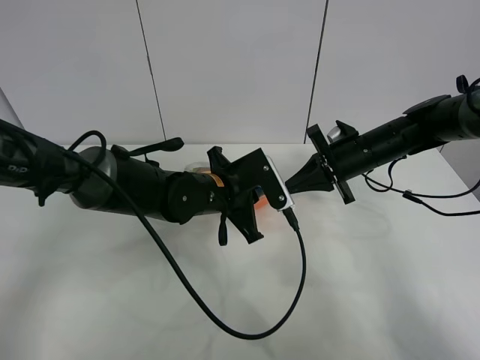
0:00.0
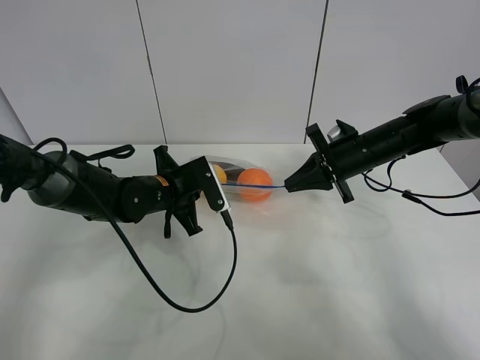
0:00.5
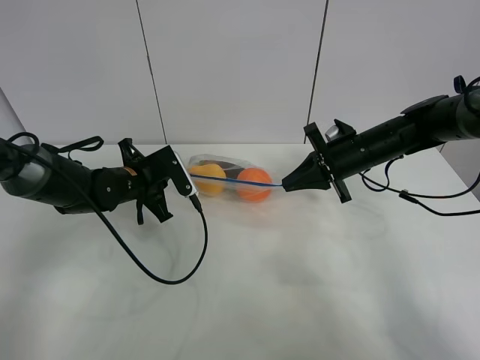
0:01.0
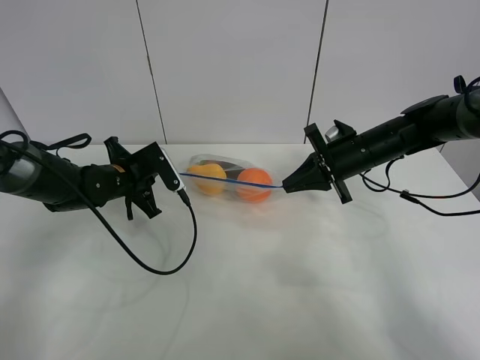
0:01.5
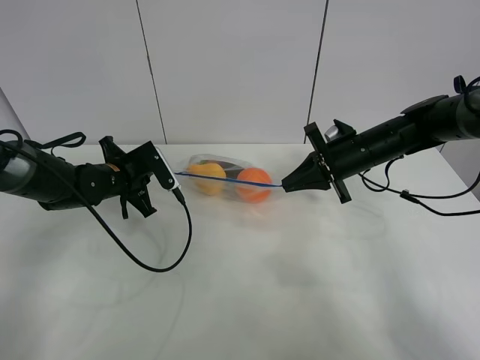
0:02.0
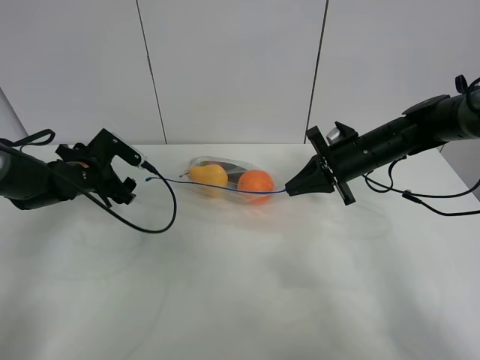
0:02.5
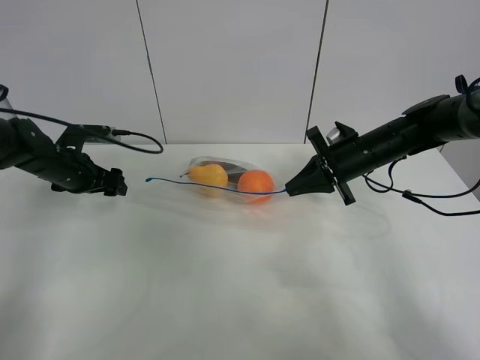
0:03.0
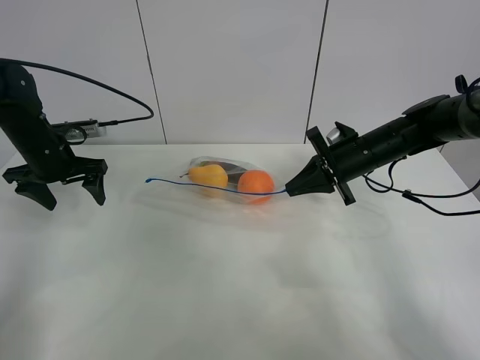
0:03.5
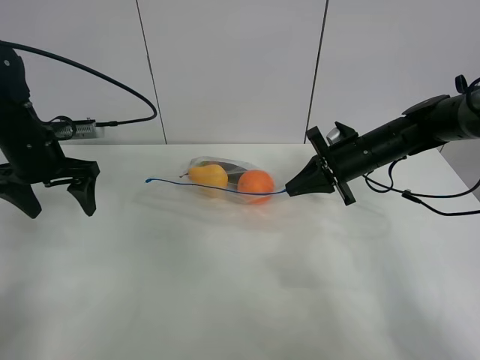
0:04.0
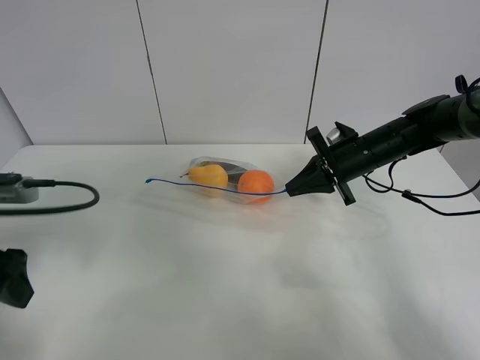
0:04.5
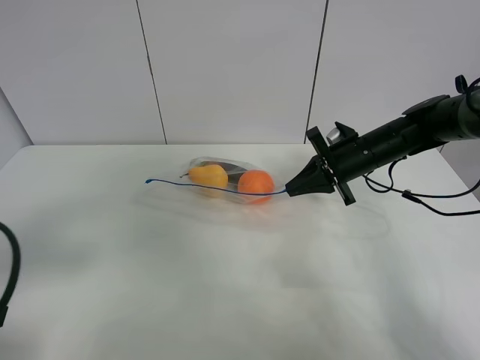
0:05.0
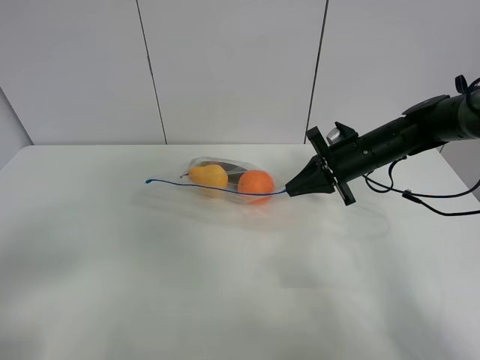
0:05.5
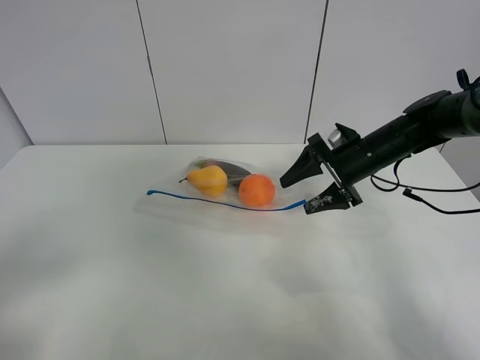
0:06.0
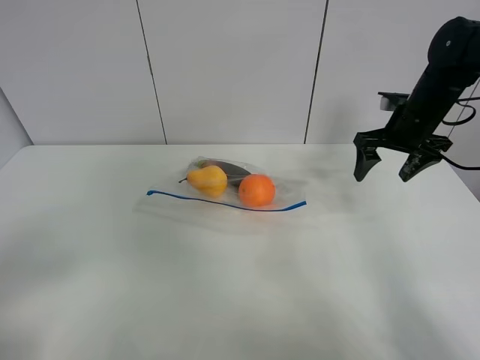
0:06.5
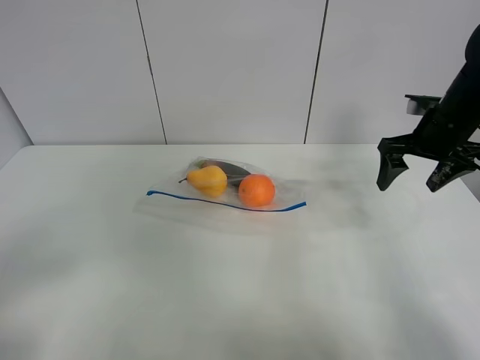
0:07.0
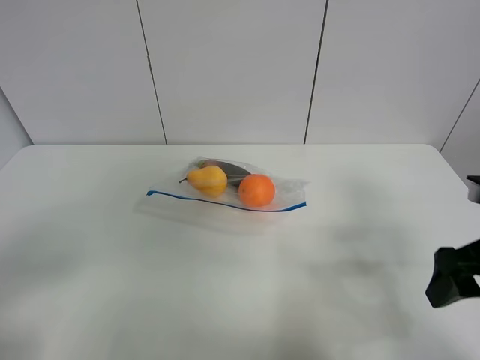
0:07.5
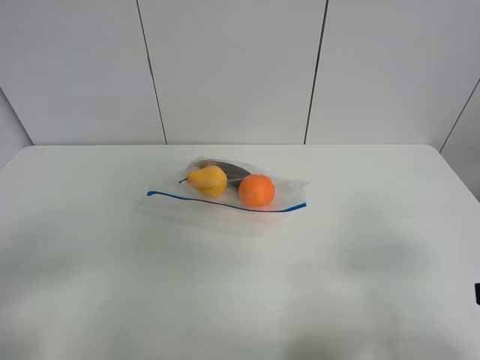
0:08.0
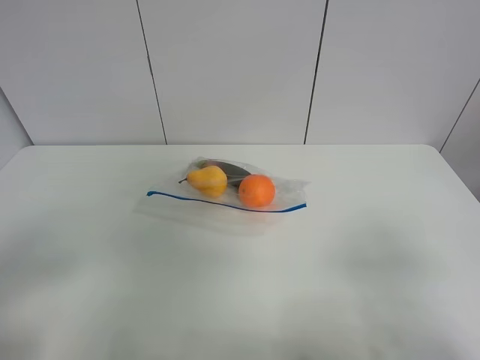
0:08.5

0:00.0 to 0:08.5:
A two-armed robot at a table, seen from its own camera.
Step, 0:00.0 to 0:02.0: Pull the fruit bag with left gripper.
0:00.0 to 0:02.0: The left gripper travels to the left by roughly 20 cm.
0:02.0 to 0:04.0: The left gripper heads upward and to the left, covering approximately 15 cm, and opens its fingers.
0:04.0 to 0:06.5: The left gripper heads backward, covering about 35 cm. The right gripper is displaced to the right and upward by about 10 cm, and opens.
0:06.5 to 0:08.5: The right gripper heads backward, covering some 40 cm.
